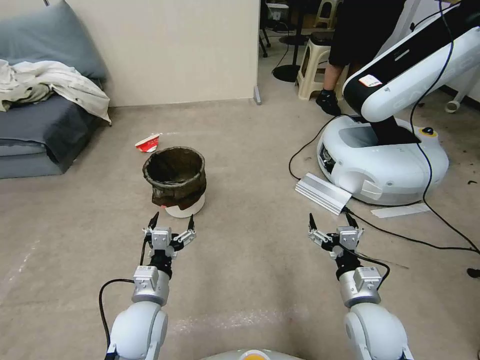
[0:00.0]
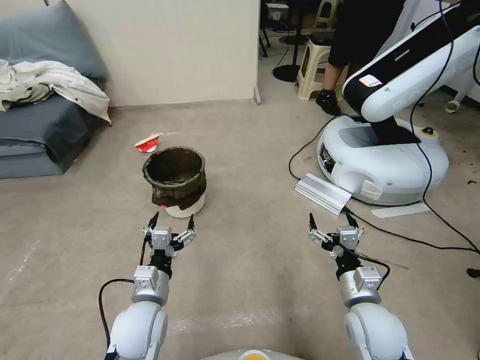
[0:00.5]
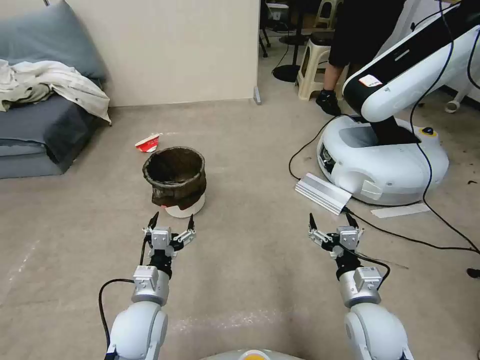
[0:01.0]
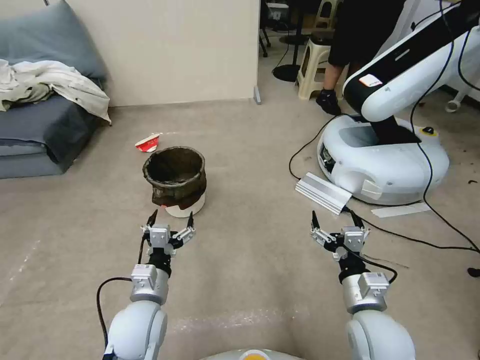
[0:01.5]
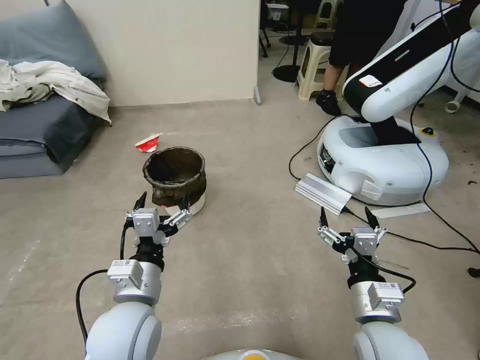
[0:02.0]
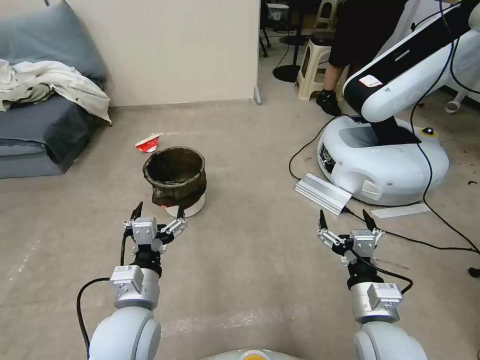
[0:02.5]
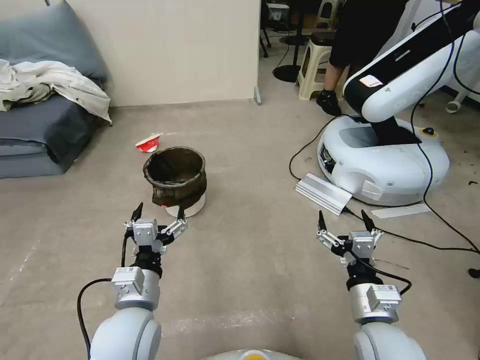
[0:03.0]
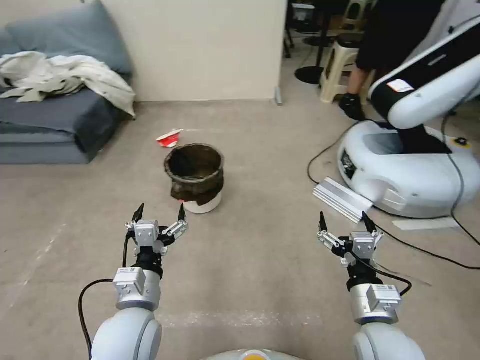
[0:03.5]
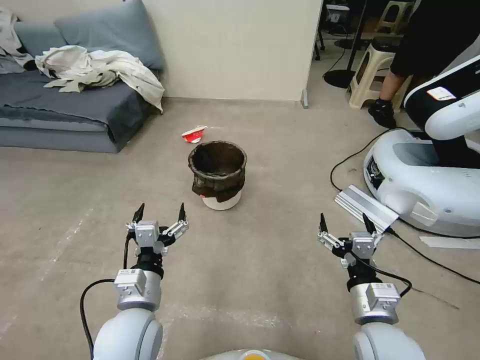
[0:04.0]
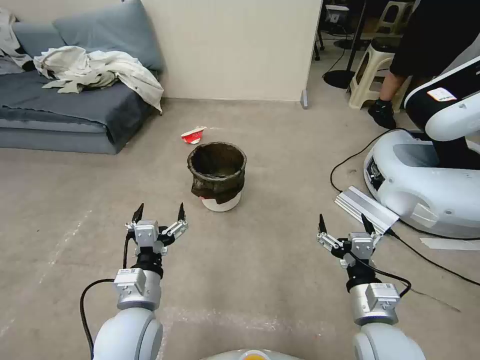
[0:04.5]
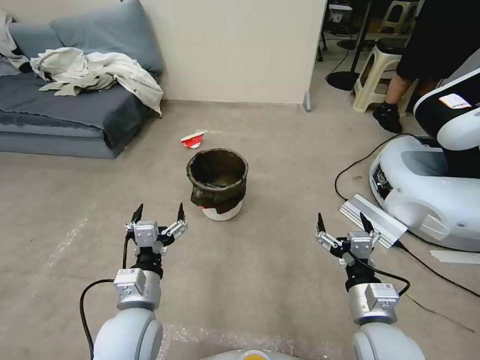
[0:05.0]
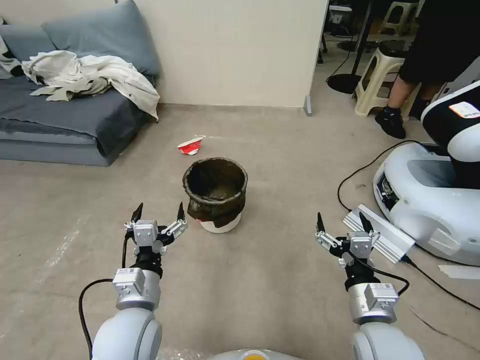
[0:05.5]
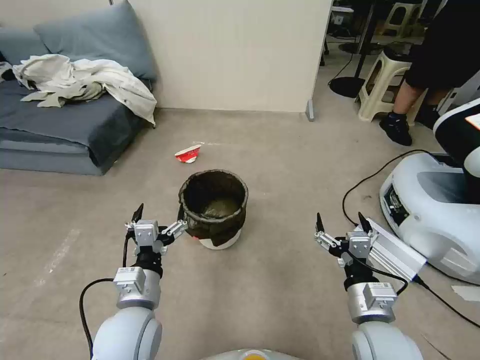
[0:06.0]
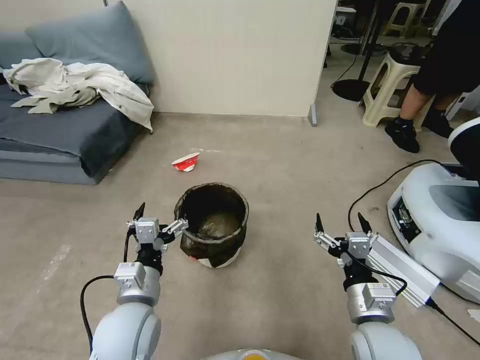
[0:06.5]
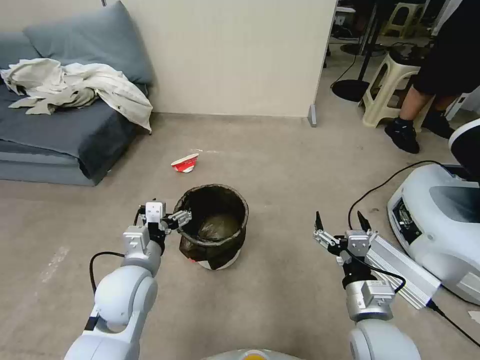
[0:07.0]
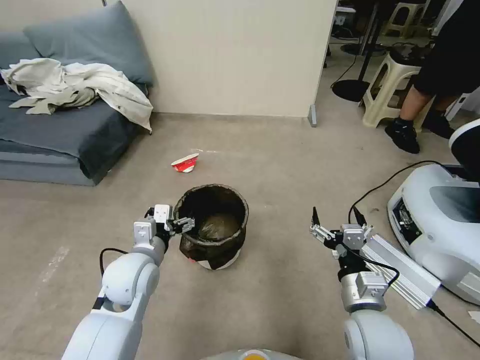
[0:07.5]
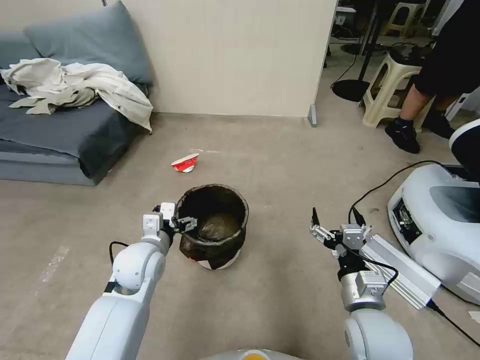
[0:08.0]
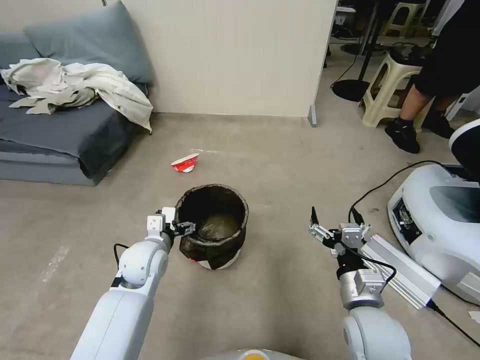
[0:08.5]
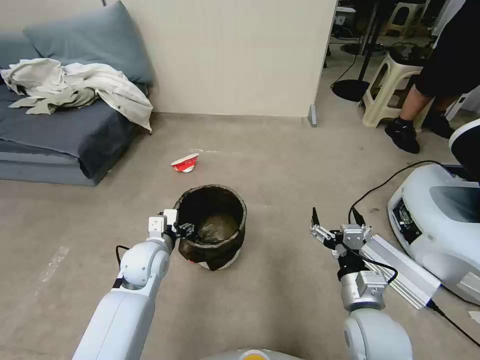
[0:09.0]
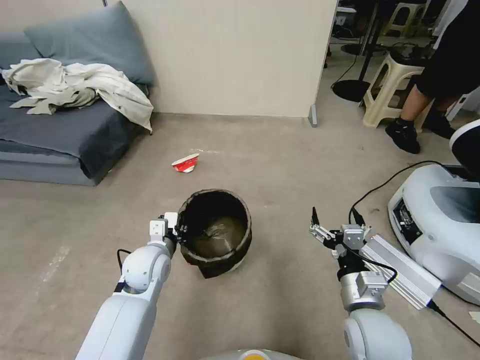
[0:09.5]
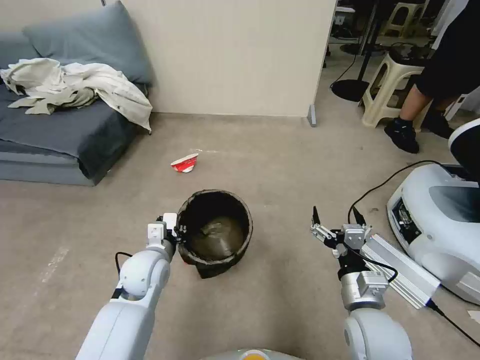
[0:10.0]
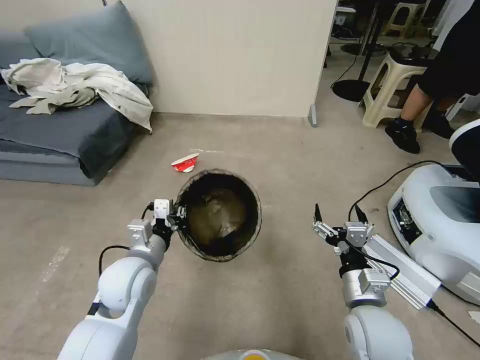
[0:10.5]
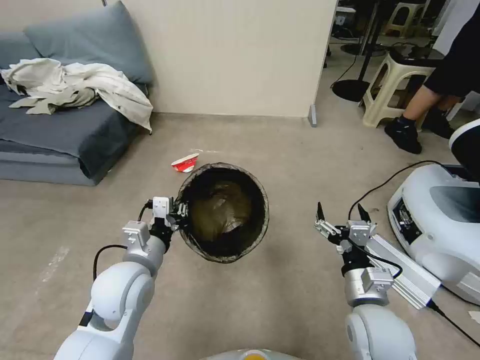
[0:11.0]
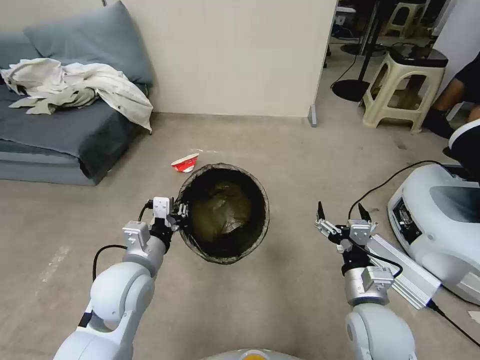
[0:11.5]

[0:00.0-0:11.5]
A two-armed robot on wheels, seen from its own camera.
Task of the whole recording: Pick up the trash can from the floor.
0:06.0 to 0:07.5: The left gripper goes roughly 10 cm forward.
0:07.5 to 0:09.5: The left gripper is displaced downward by approximately 5 cm, and closes its fingers.
0:09.5 to 0:11.5: The left gripper heads upward and backward, covering approximately 10 cm.
